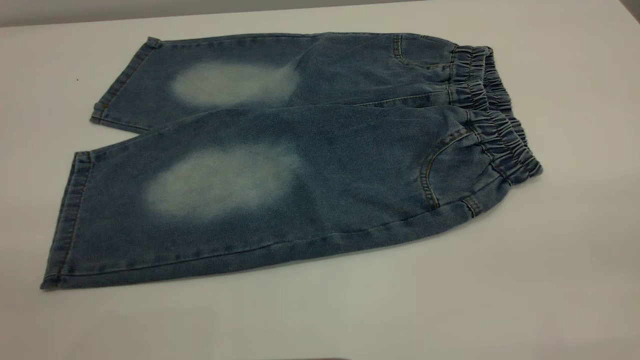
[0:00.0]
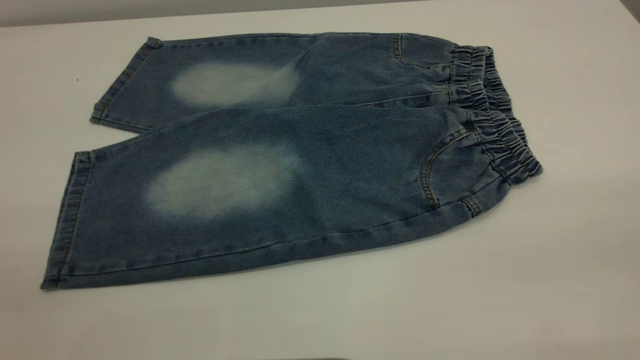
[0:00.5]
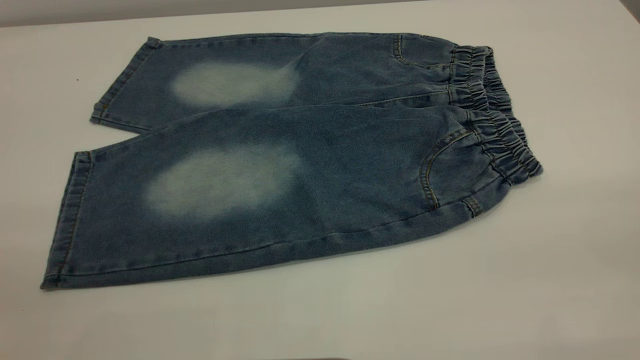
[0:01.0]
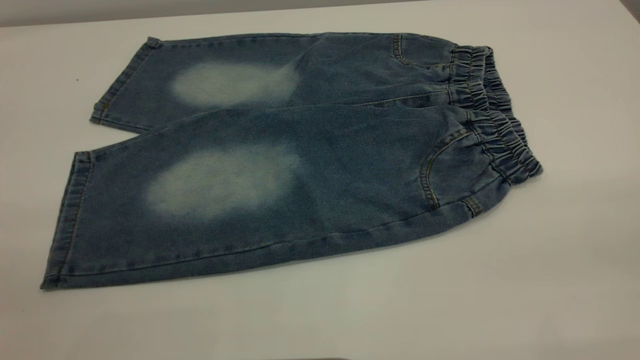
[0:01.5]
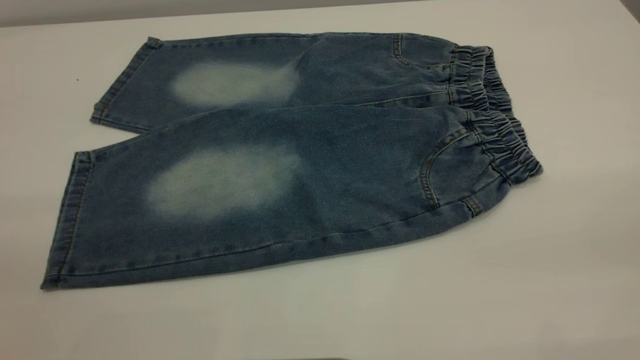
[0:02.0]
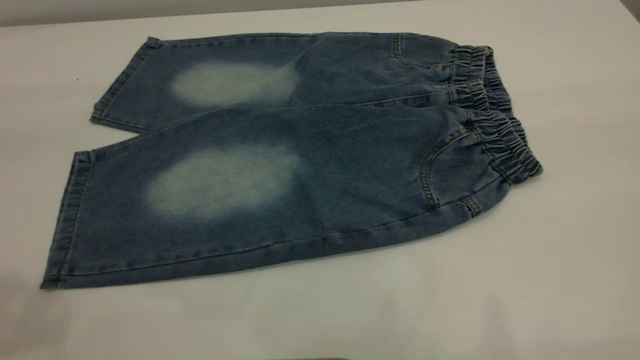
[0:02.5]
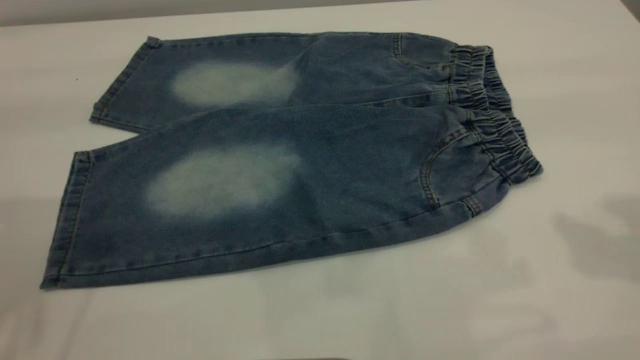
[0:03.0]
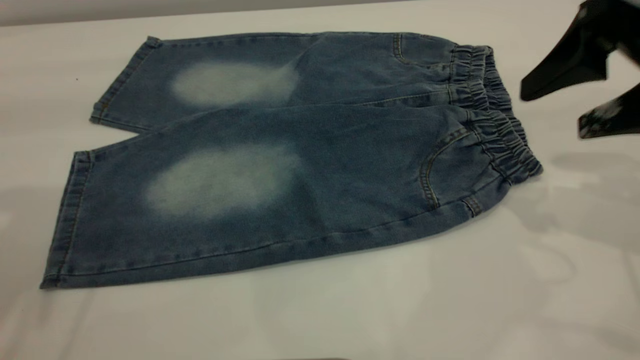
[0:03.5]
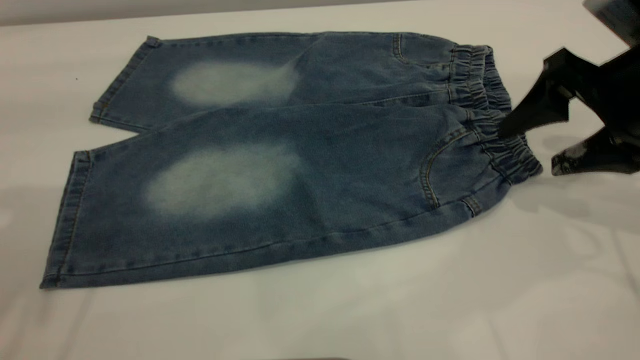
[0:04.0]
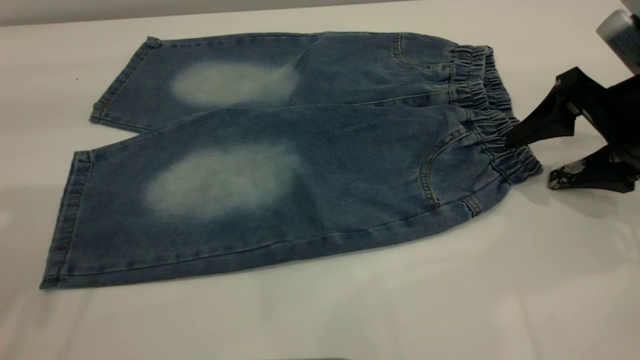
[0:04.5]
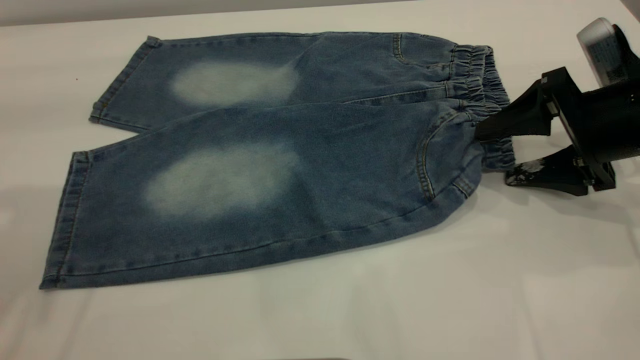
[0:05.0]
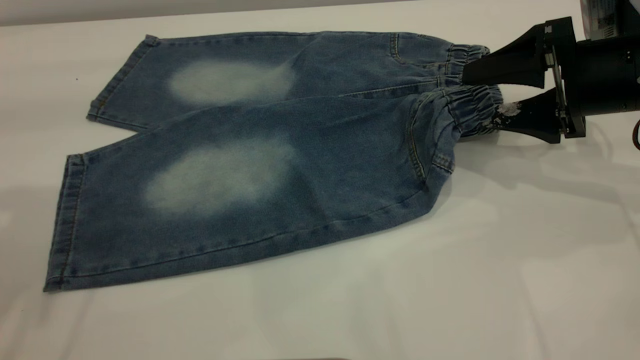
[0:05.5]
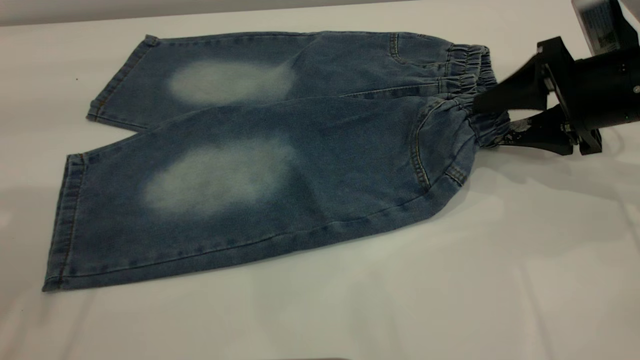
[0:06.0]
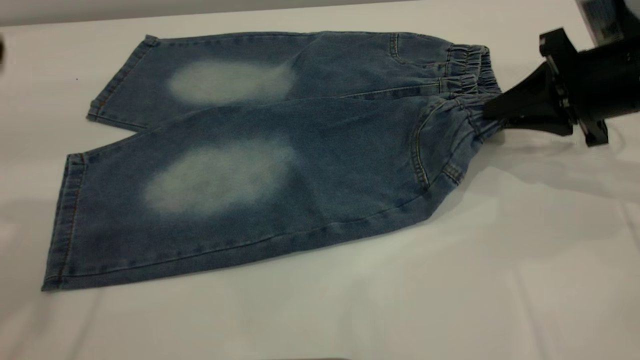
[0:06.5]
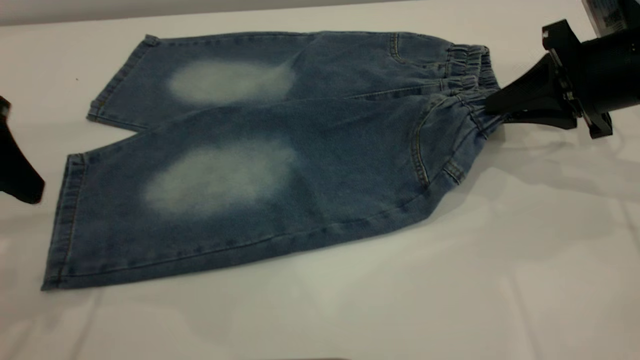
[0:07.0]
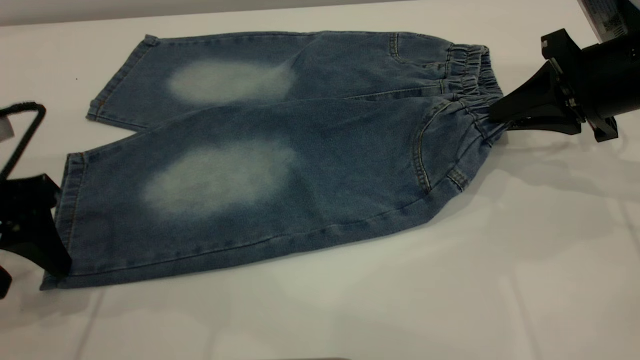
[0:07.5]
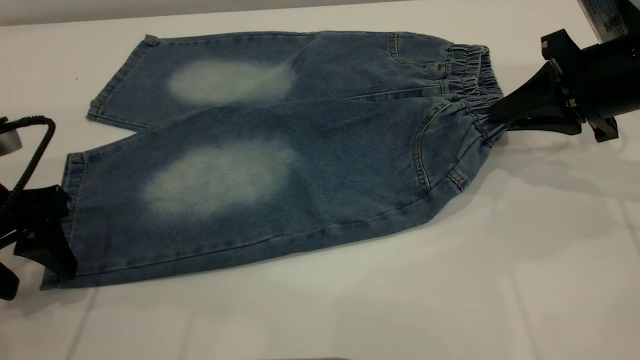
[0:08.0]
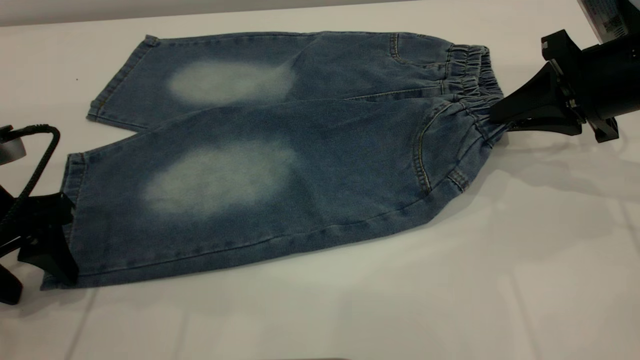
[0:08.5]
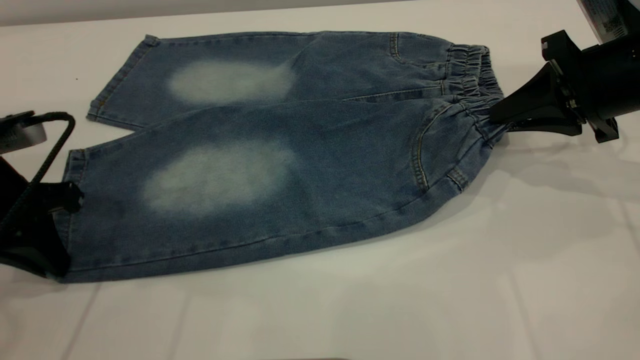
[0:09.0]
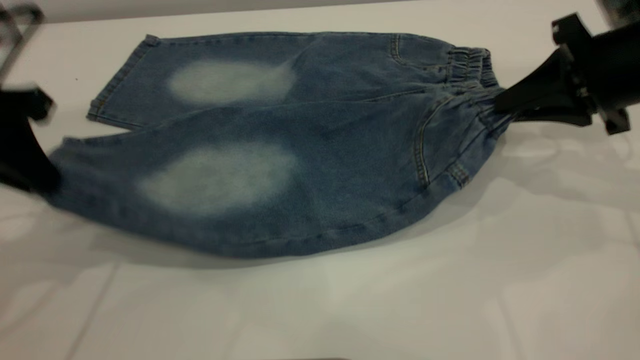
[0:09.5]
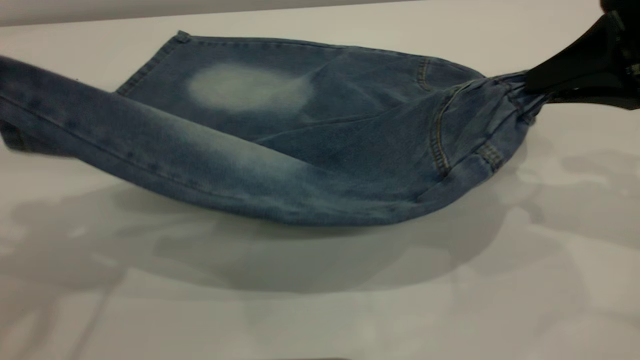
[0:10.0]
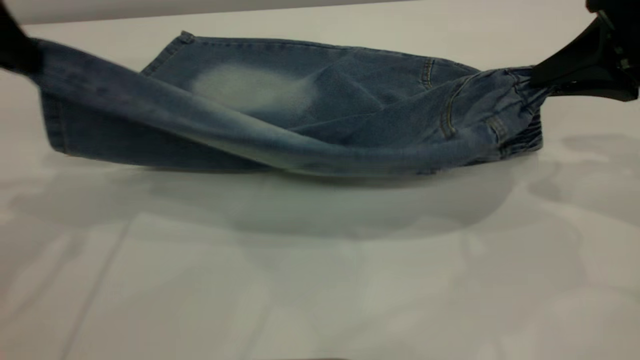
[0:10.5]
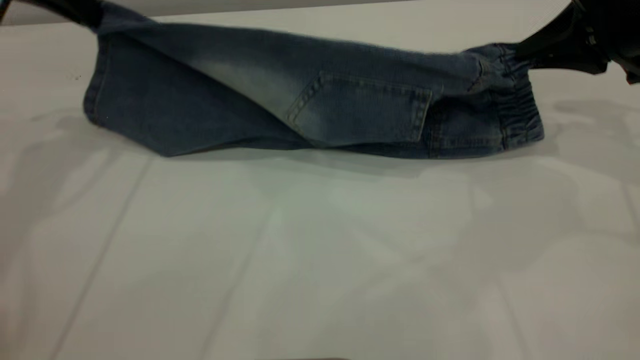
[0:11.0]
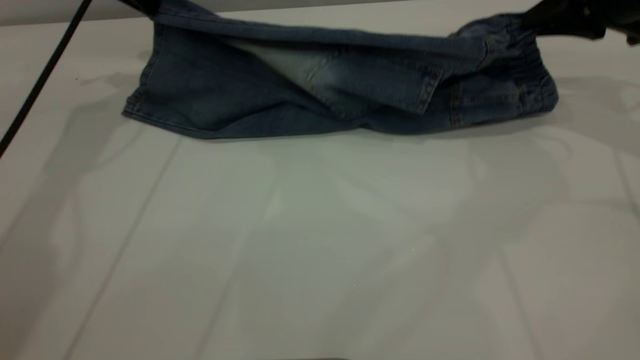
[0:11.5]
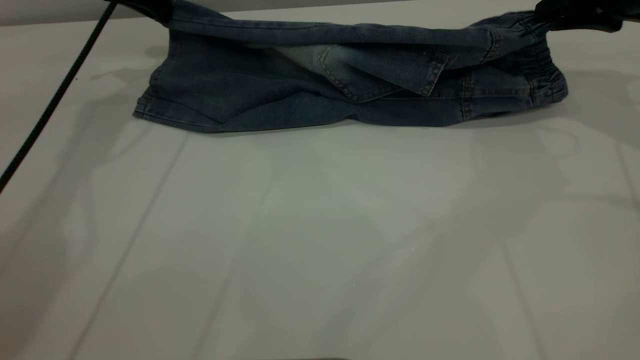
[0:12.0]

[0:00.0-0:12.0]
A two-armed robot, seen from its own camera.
0:02.0 to 0:04.0: The right gripper shifts some 35 cm forward and downward.
0:04.0 to 0:06.0: The right gripper moves some 5 cm, and closes its fingers.
0:06.0 to 0:08.0: The right gripper closes its fingers; the left gripper is displaced downward by about 20 cm.
0:08.0 to 0:10.0: The right gripper travels upward and backward by about 10 cm. The left gripper travels upward by about 15 cm, and closes its fingers.
0:10.0 to 0:12.0: The left gripper moves forward, about 30 cm, while the right gripper travels forward by some 15 cm.

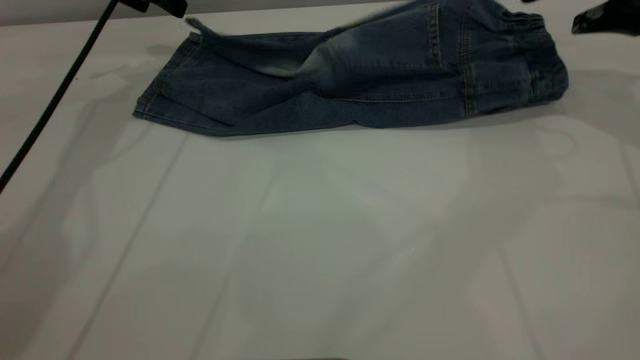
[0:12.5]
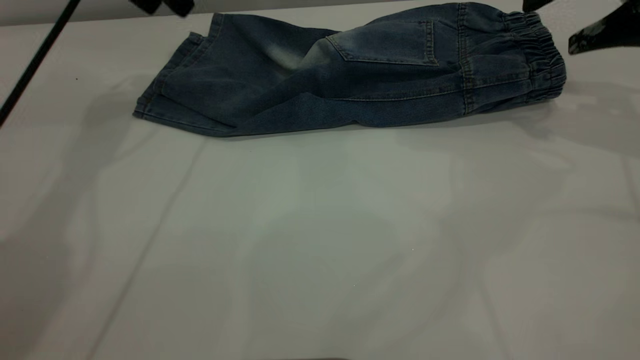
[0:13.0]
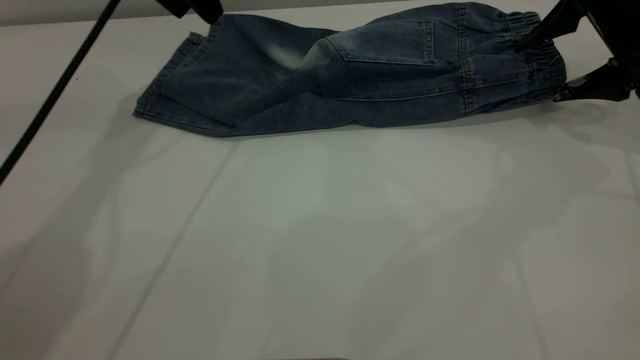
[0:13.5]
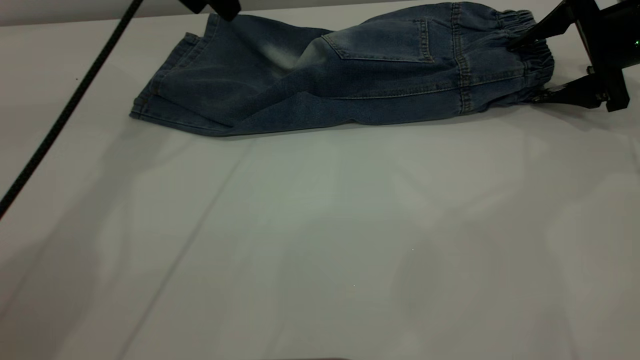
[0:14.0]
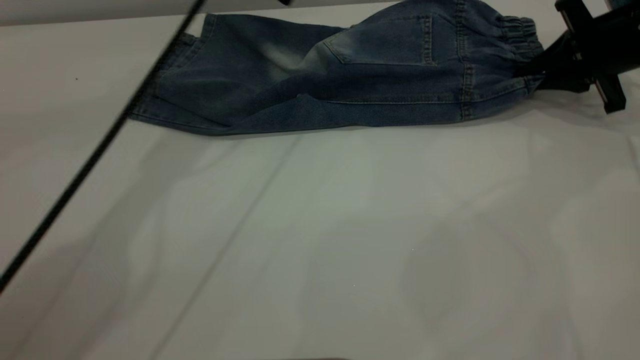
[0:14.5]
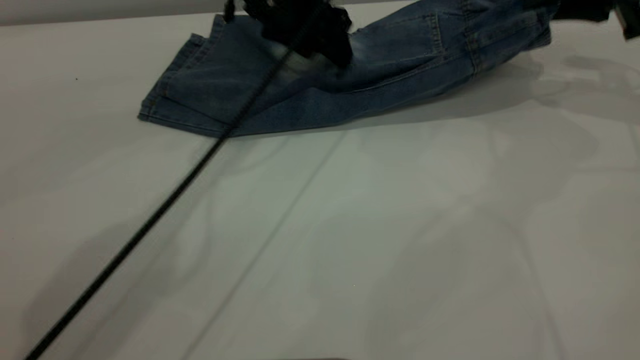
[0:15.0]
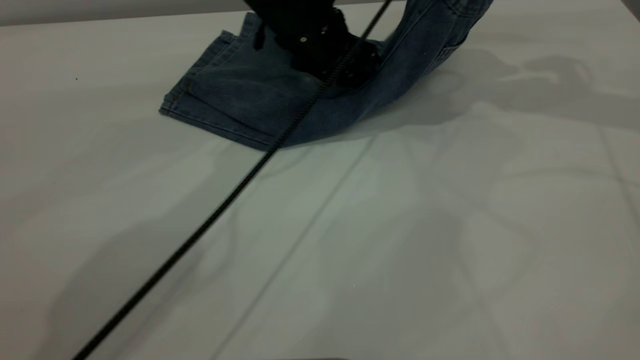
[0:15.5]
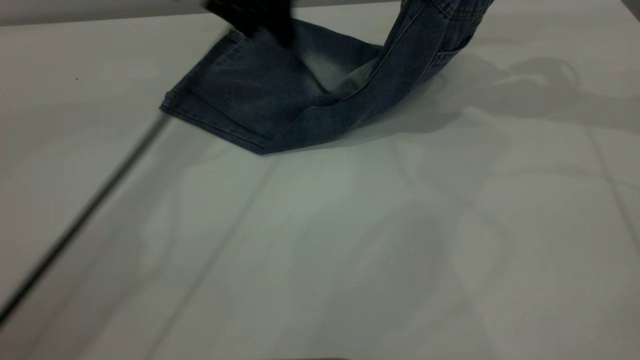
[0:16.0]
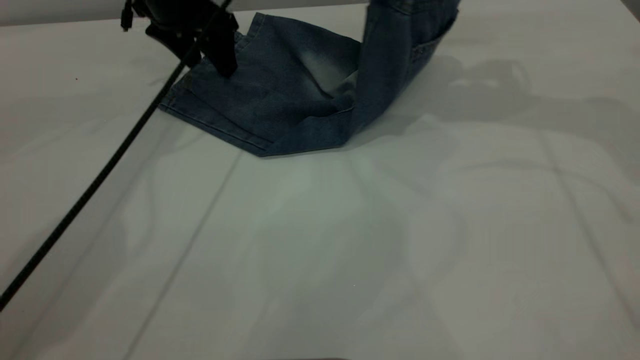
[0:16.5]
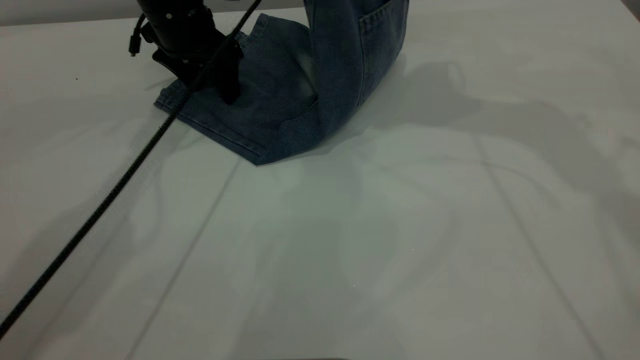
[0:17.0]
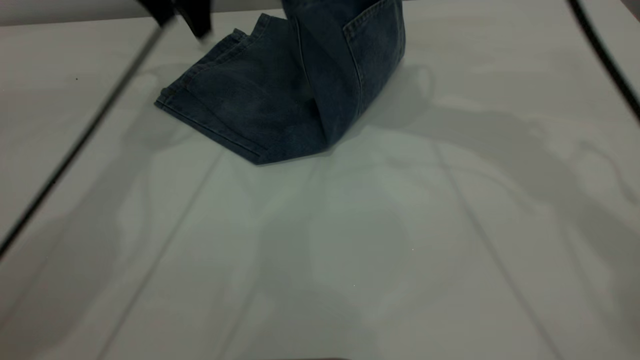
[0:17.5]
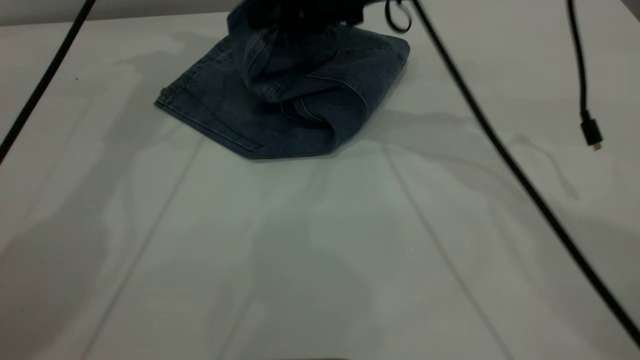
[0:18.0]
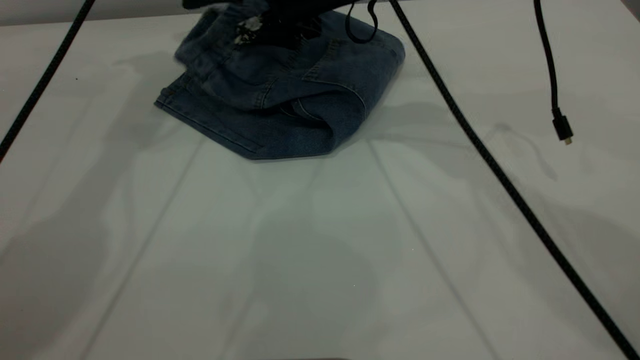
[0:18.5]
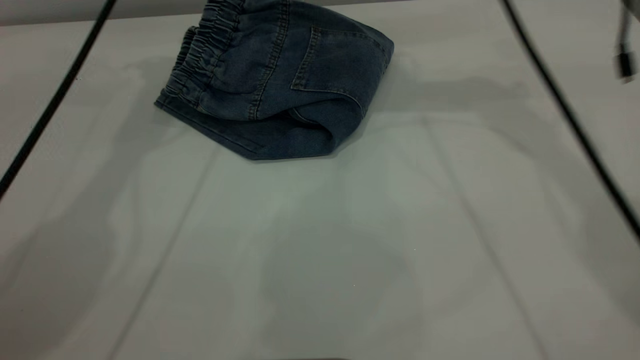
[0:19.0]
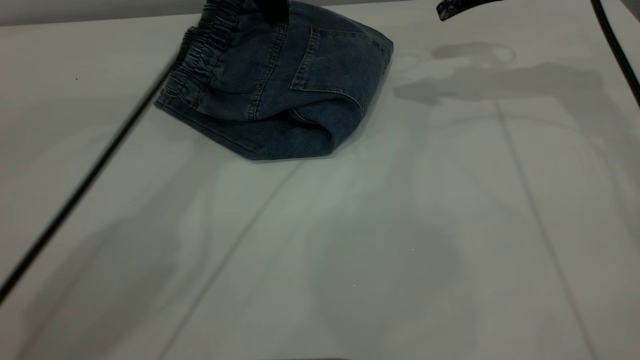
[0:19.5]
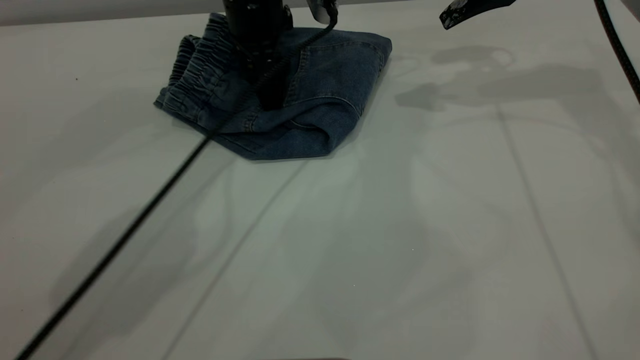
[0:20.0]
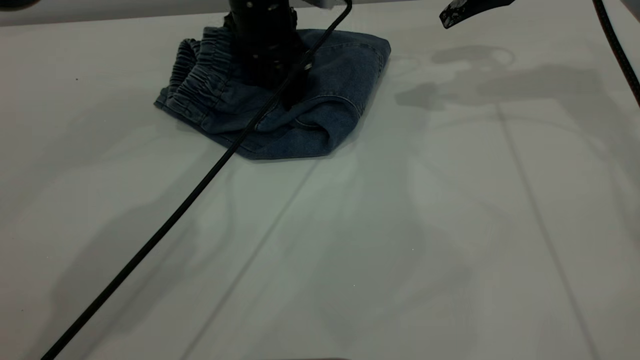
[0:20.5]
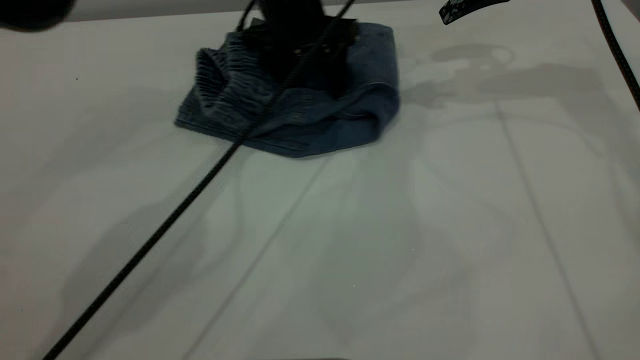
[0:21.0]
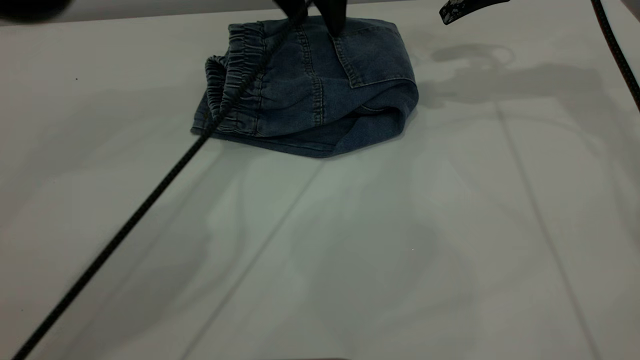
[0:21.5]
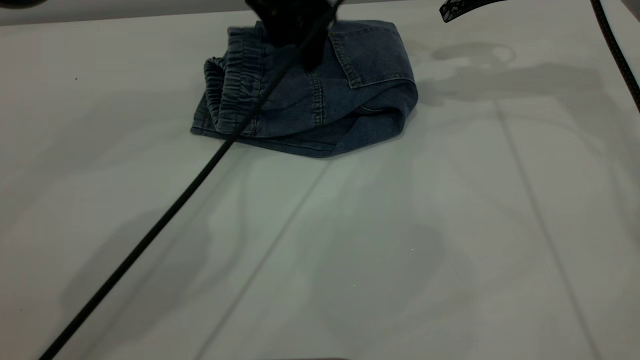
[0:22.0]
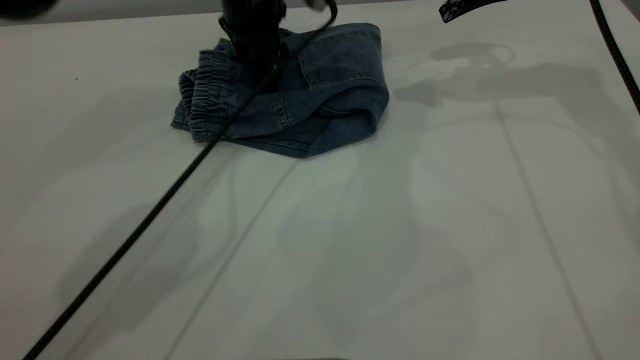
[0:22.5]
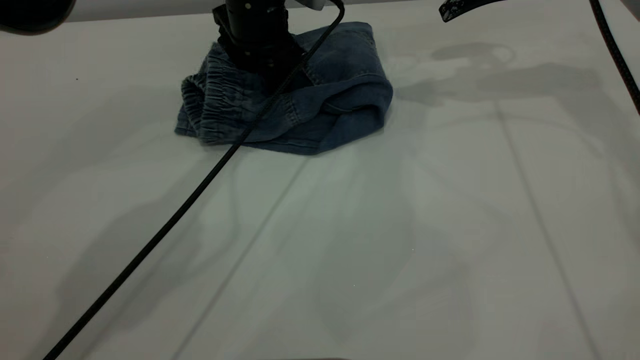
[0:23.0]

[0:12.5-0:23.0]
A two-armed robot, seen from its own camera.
Step, 0:13.0 to 0:18.5: Fold your pants from right to left.
0:12.5 to 0:14.5: The left gripper is displaced to the right by about 15 cm; the right gripper travels downward by roughly 10 cm, and closes its fingers.
0:14.5 to 0:16.5: The right gripper moves upward and to the left, roughly 20 cm. Meanwhile the left gripper moves downward and to the left, some 10 cm.
0:16.5 to 0:19.0: The right gripper heads to the left, covering roughly 10 cm, and opens its fingers. The left gripper goes approximately 15 cm upward.
0:19.0 to 0:21.0: The right gripper moves to the right, about 10 cm. The left gripper shifts about 20 cm to the right and downward.
0:21.0 to 0:23.0: The left gripper goes upward and returns, approximately 5 cm each way.
